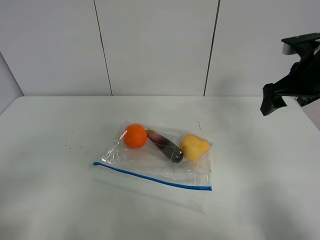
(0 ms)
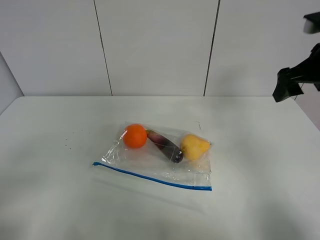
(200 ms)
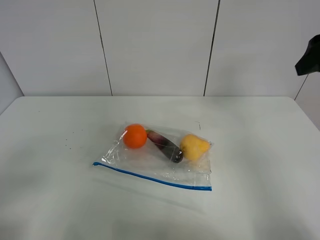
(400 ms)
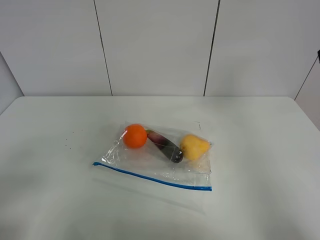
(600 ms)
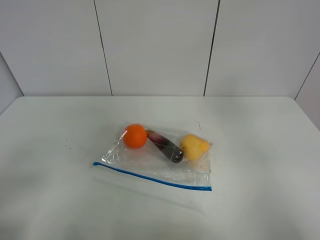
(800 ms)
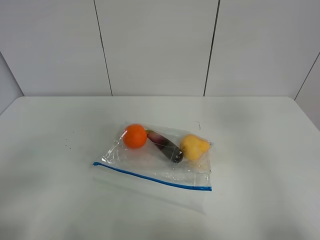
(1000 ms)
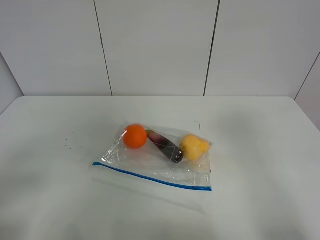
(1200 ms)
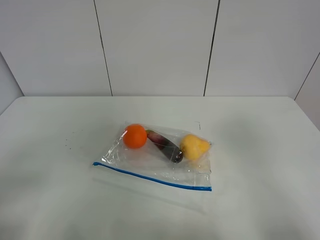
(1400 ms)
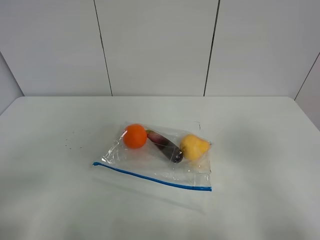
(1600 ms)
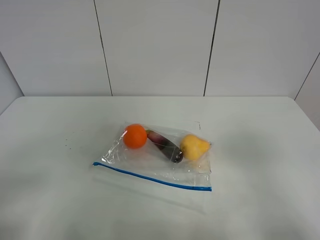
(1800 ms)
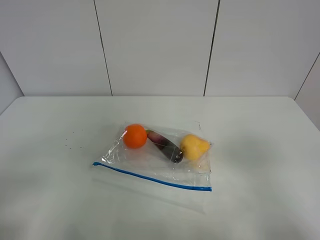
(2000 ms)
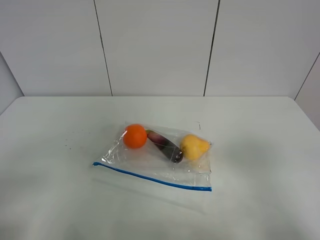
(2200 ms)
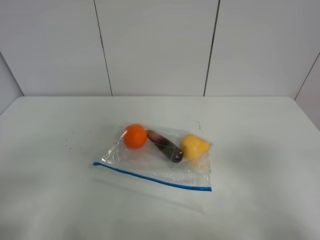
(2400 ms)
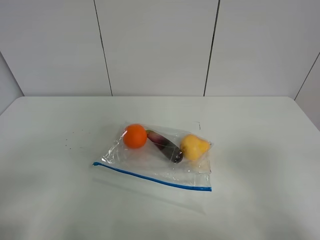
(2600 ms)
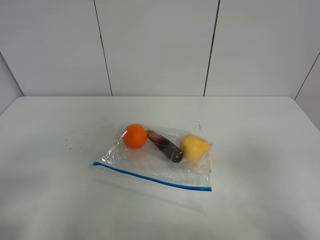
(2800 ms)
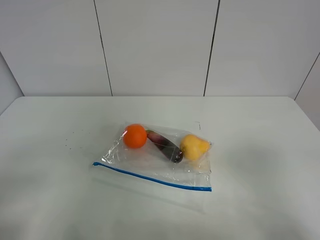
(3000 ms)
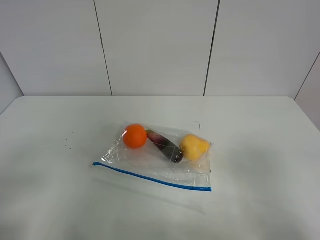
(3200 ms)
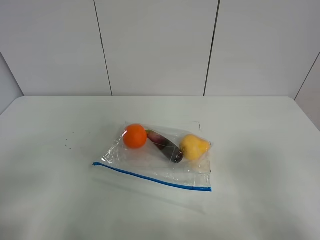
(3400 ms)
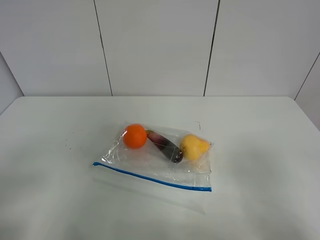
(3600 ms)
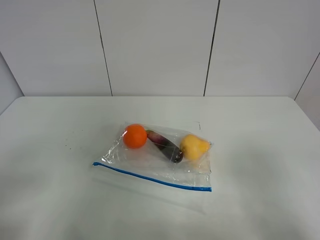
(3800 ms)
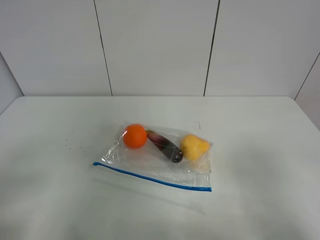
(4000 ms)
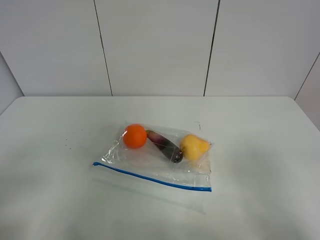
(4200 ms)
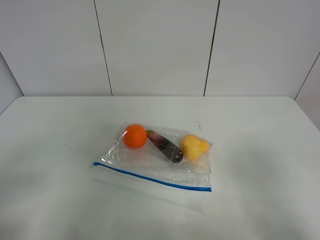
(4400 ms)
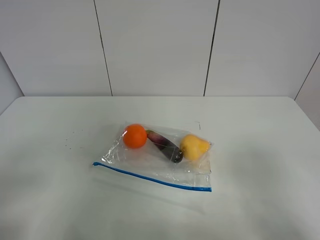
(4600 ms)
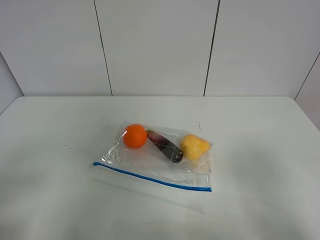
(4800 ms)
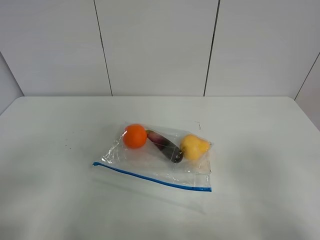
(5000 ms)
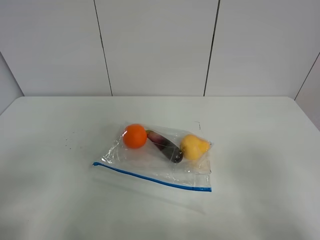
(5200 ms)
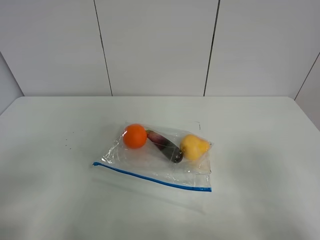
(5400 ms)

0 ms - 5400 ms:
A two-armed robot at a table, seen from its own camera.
0 ms - 1400 ms: The right gripper shifts about 30 cm backward.
4000 ms - 5400 ms: The two grippers keep their place.
